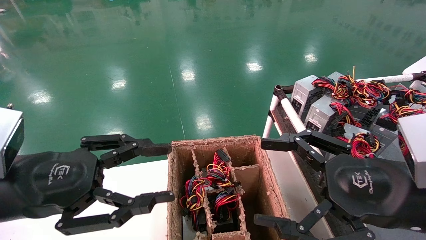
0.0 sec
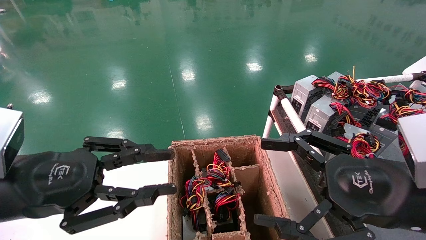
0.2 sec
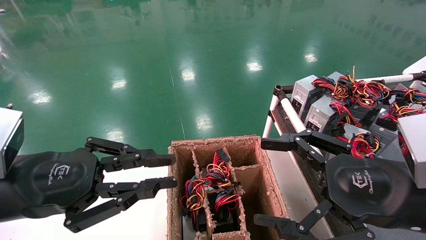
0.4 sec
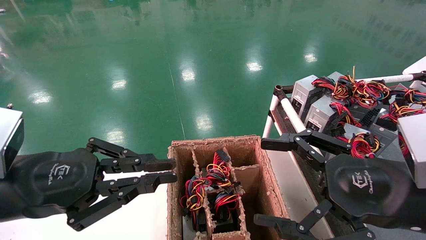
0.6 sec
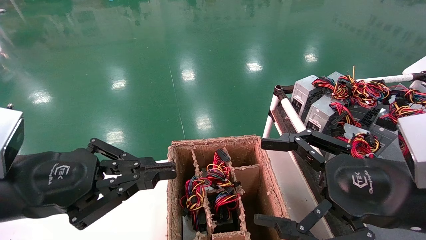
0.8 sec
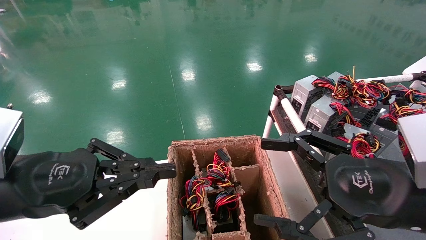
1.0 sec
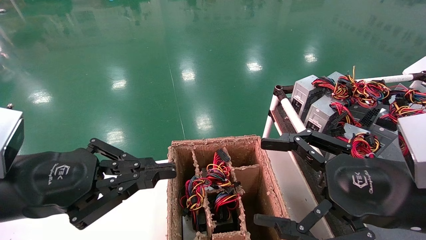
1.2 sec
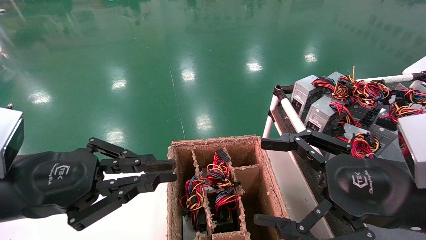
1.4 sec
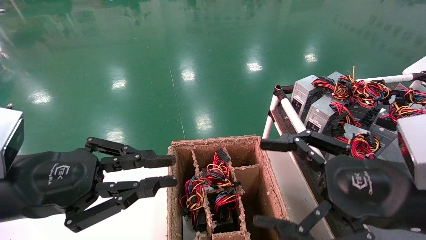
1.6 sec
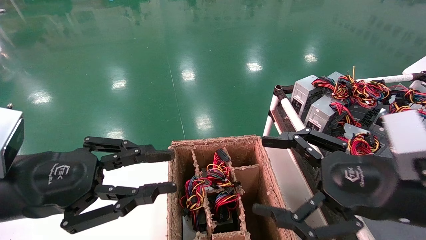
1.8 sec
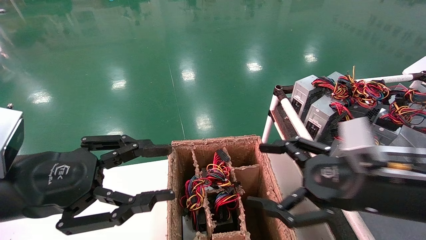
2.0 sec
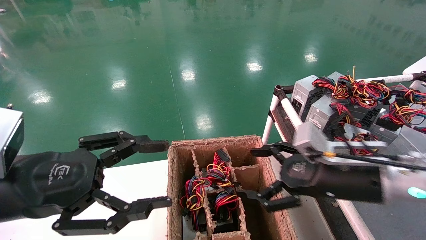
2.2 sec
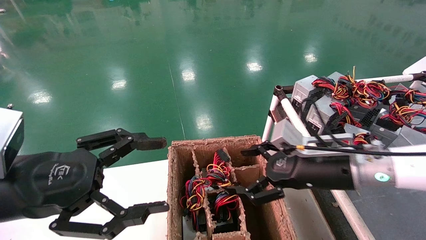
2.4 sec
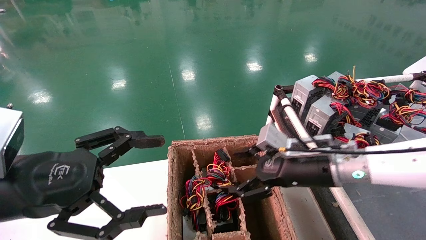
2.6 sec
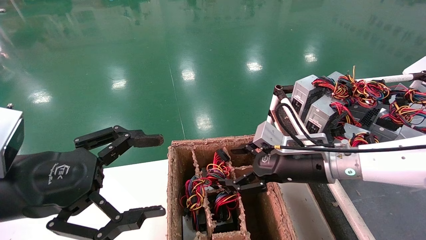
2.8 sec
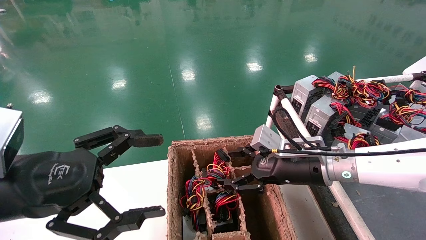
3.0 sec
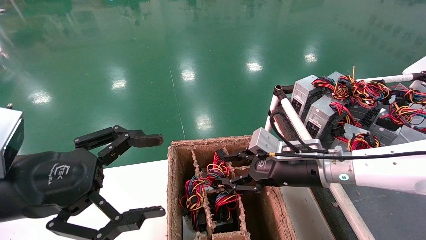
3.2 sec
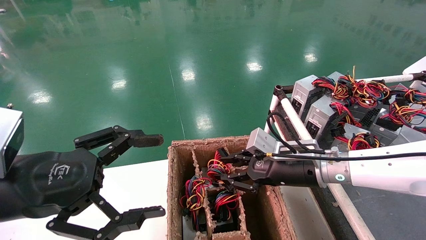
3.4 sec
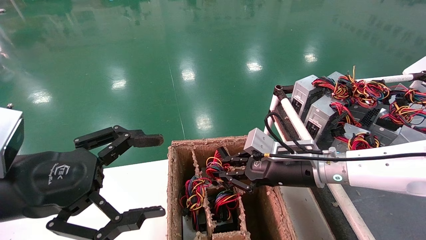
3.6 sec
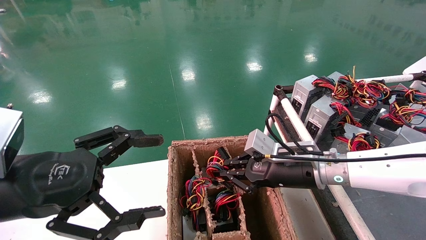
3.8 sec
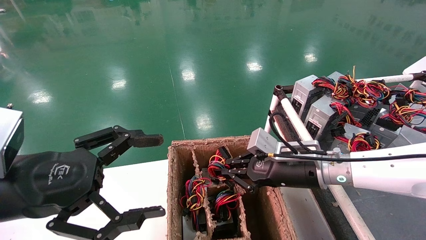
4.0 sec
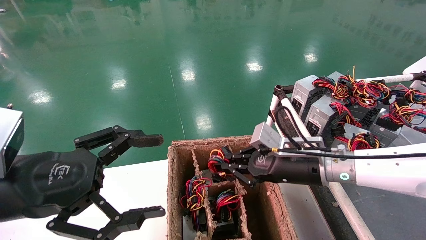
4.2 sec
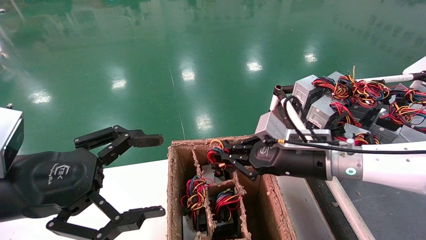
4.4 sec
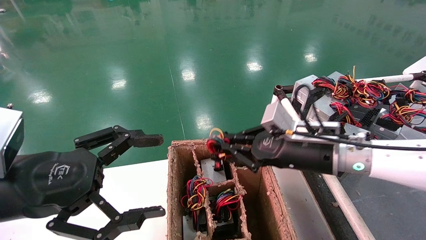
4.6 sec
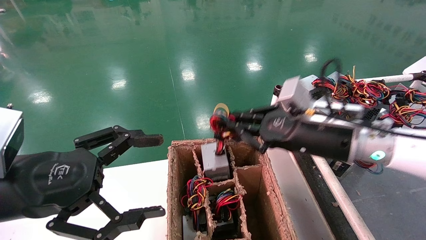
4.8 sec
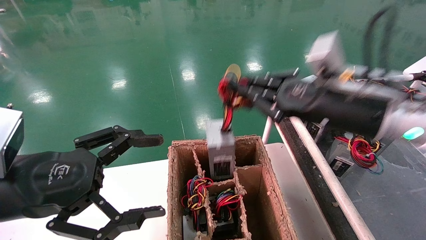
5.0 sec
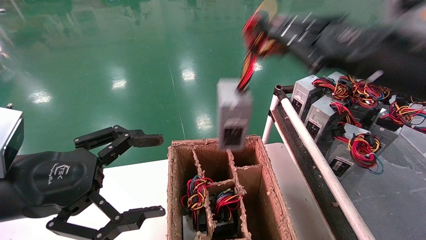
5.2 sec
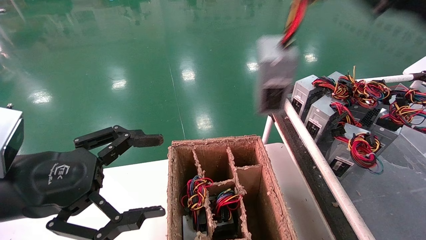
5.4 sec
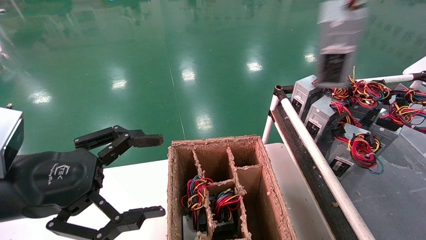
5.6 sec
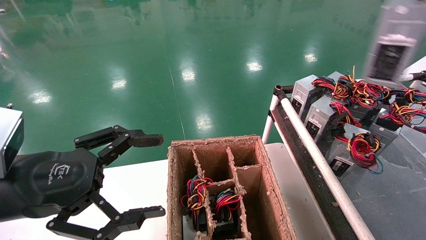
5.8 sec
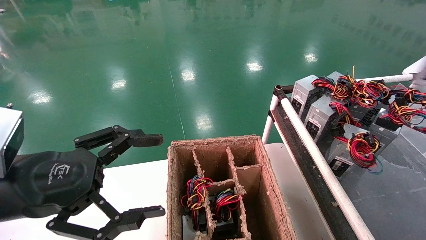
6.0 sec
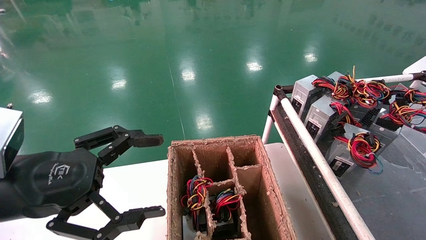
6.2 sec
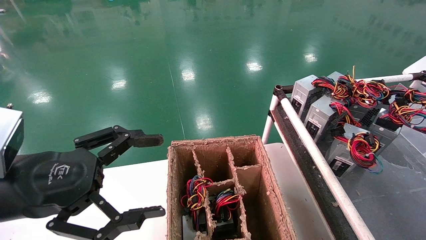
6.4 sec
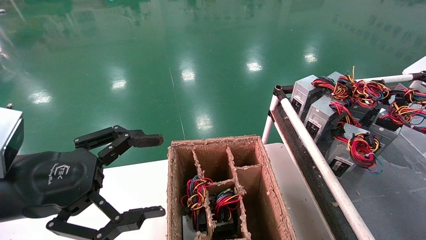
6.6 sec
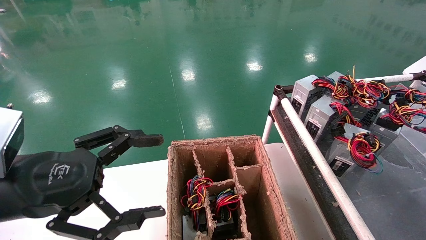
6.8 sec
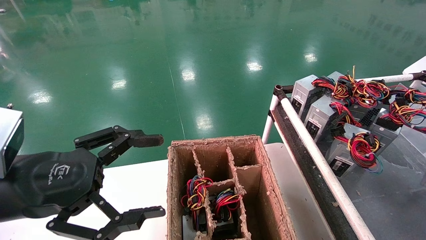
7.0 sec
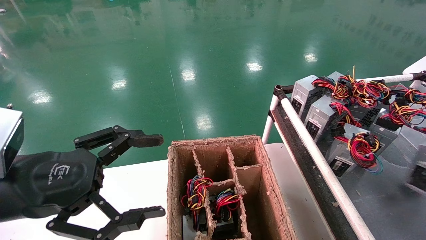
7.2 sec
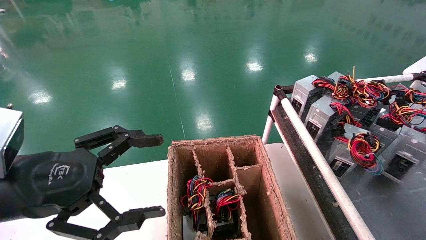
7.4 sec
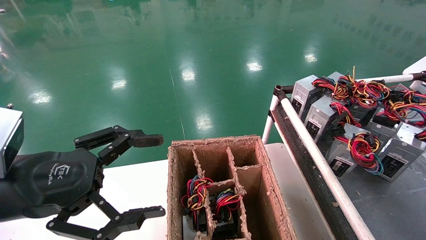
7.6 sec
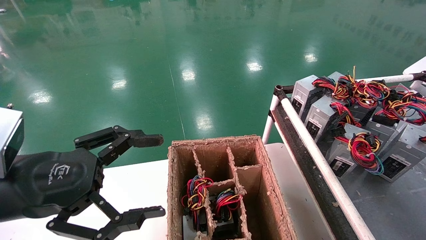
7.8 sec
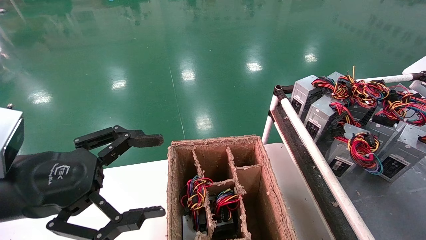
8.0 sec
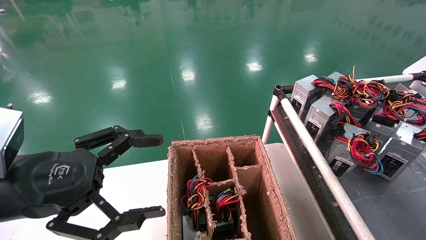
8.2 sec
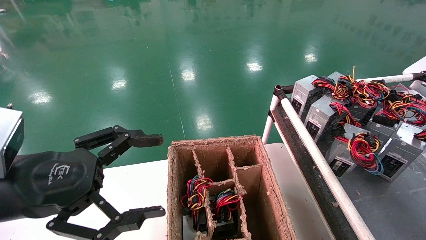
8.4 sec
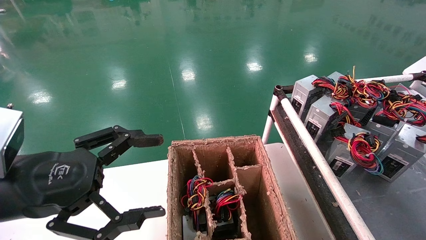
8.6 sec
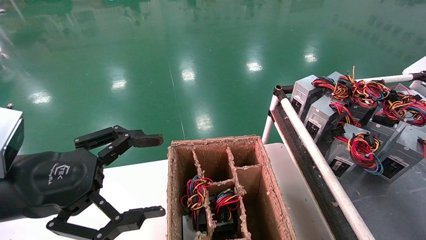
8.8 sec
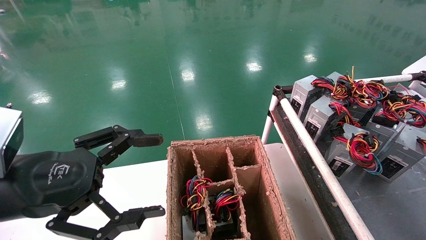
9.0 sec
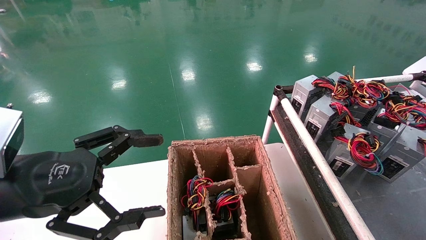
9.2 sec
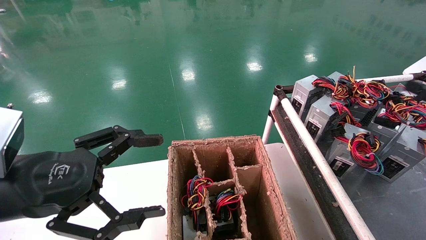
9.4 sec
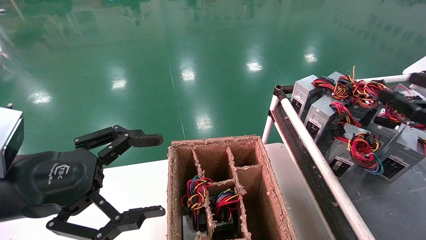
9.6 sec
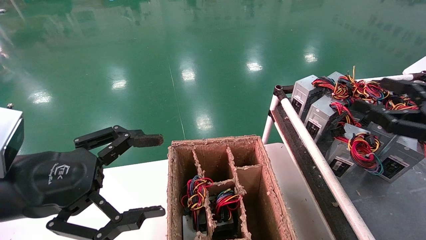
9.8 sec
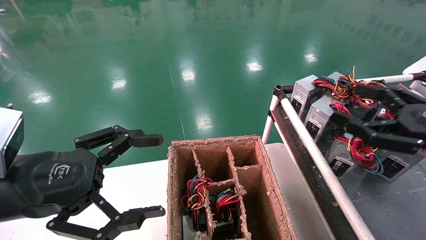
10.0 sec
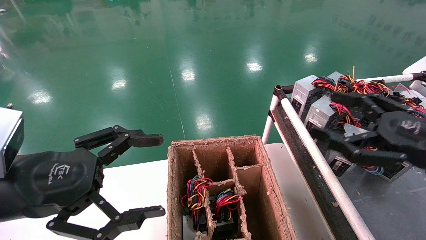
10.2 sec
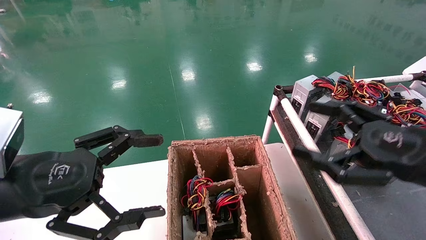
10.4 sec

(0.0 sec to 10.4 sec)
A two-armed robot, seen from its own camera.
Step, 1.0 sec - 4.0 sec: Grab and lift the power supply from the large box.
Step, 4.2 sec - 8.0 sec: Place the power supply on the operating table.
0.0 sec - 1.4 sec: The left gripper closes.
1.4 sec - 3.0 sec: The right gripper travels forward and to the left by approximately 20 cm, while the left gripper opens.
3.0 sec - 4.4 sec: The right gripper closes up.
4.4 sec - 6.0 sec: The right gripper heads to the right, upward and backward, covering about 40 cm.
6.0 sec - 7.4 sec: The right gripper travels downward by roughly 20 cm.
7.4 sec - 9.0 sec: The right gripper opens its fingers.
9.0 sec - 10.4 sec: The right gripper shifts some 20 cm to the left, and opens its fingers.

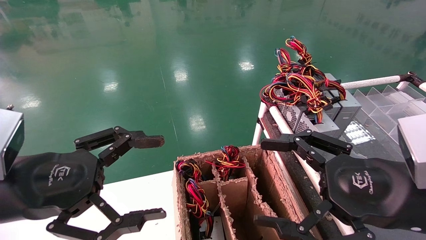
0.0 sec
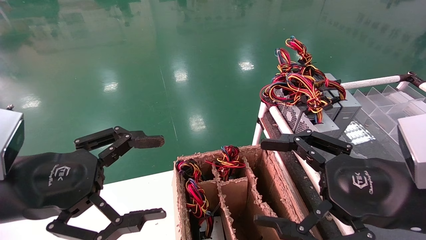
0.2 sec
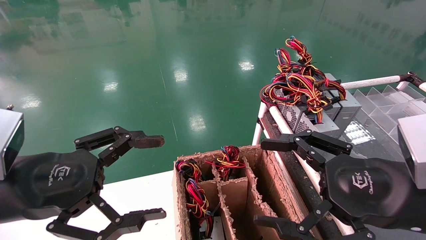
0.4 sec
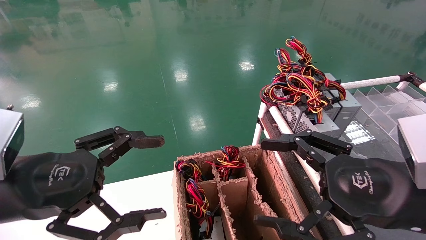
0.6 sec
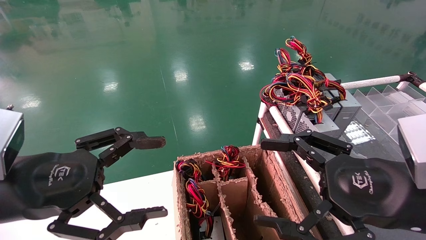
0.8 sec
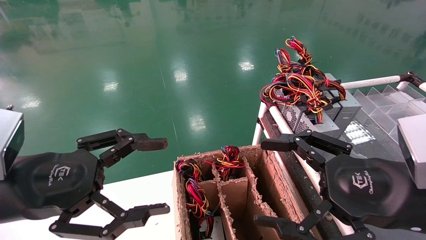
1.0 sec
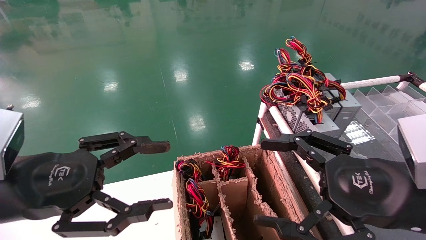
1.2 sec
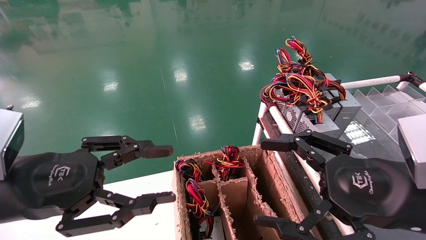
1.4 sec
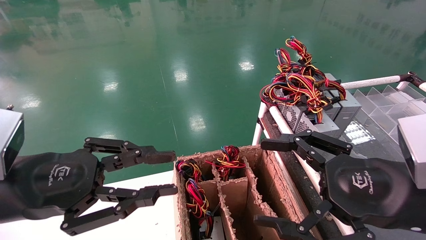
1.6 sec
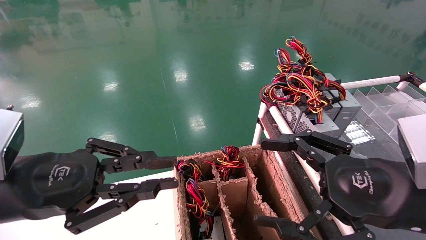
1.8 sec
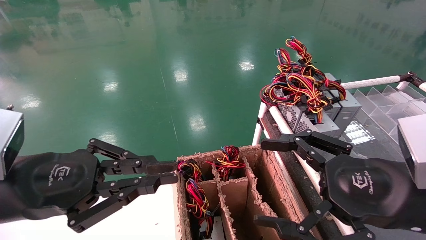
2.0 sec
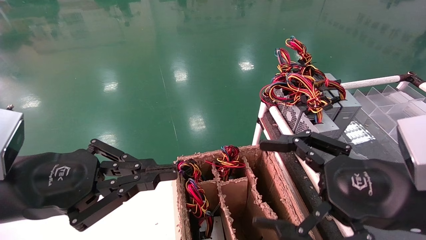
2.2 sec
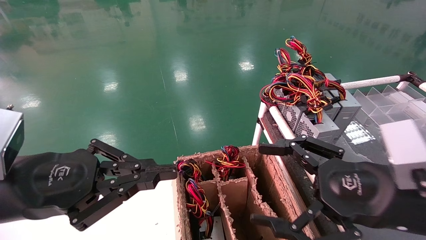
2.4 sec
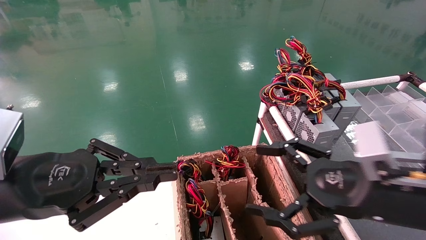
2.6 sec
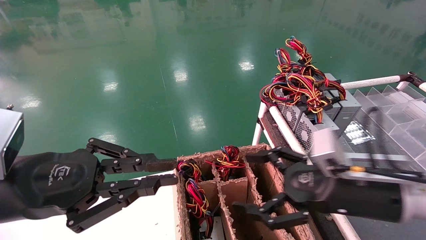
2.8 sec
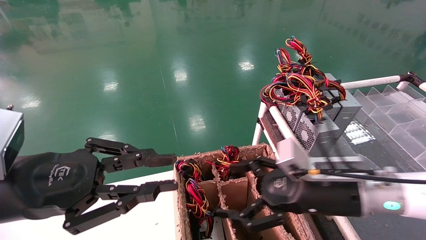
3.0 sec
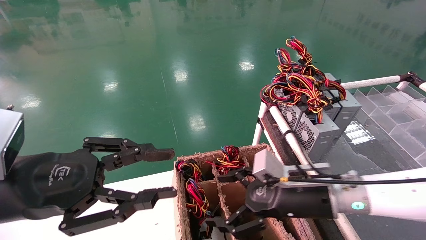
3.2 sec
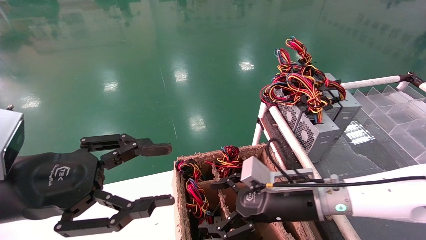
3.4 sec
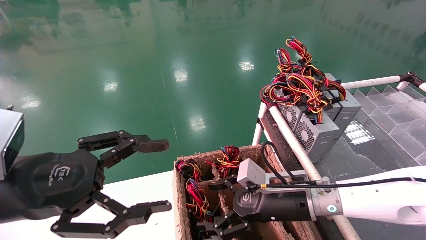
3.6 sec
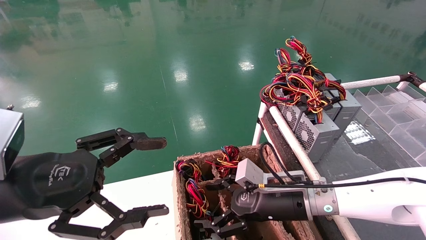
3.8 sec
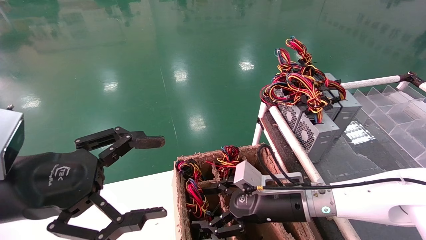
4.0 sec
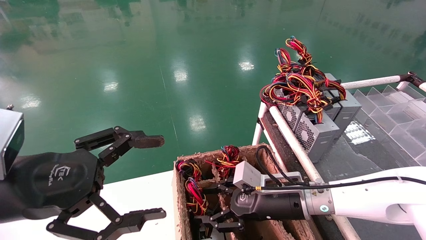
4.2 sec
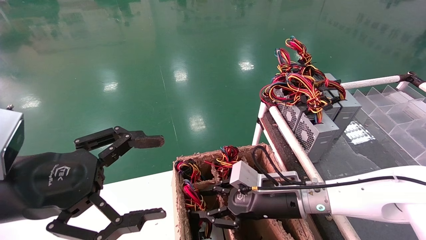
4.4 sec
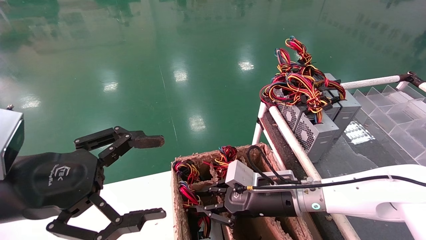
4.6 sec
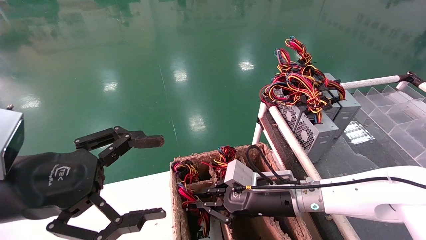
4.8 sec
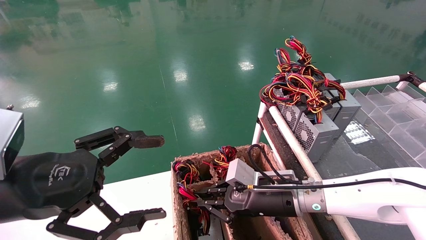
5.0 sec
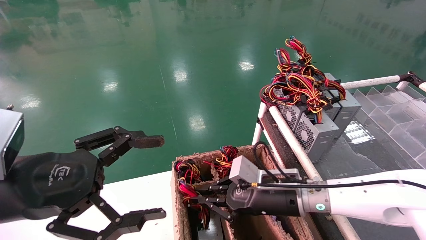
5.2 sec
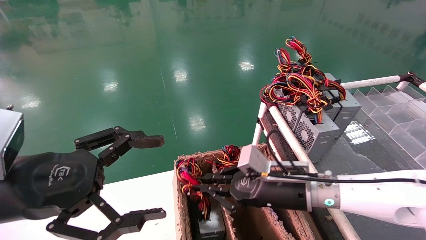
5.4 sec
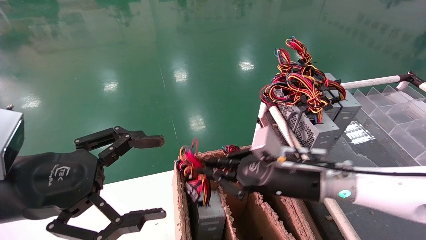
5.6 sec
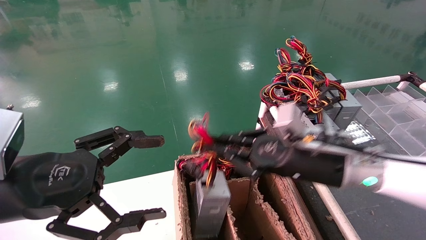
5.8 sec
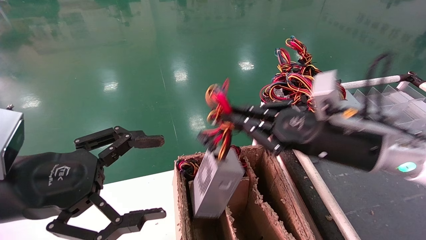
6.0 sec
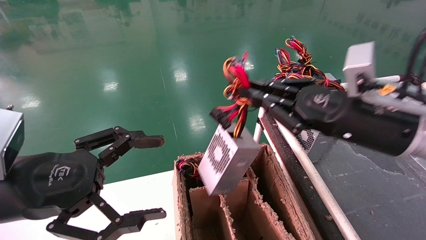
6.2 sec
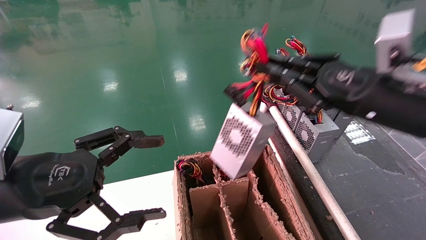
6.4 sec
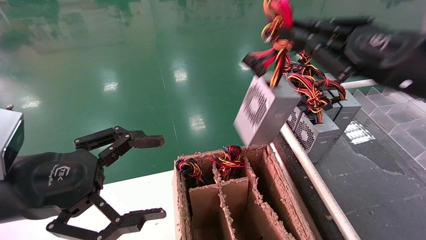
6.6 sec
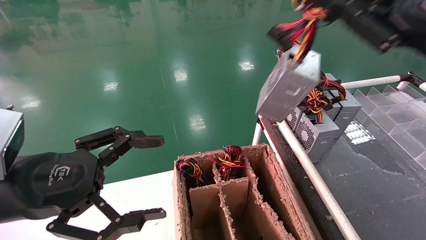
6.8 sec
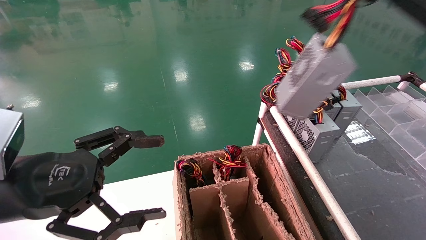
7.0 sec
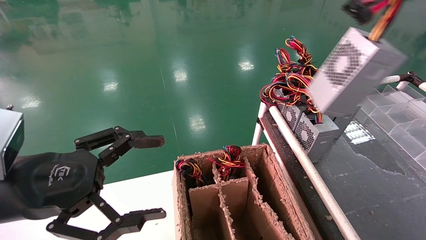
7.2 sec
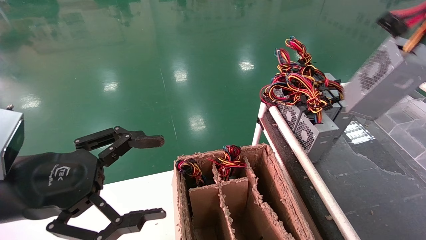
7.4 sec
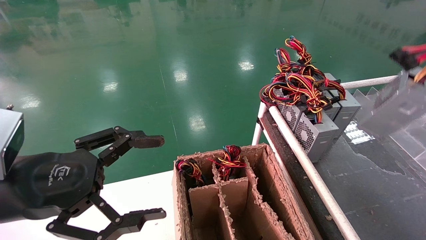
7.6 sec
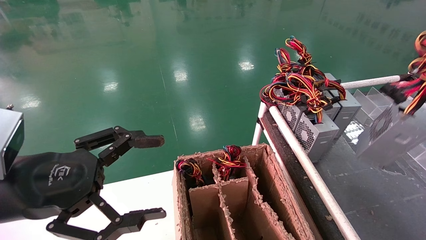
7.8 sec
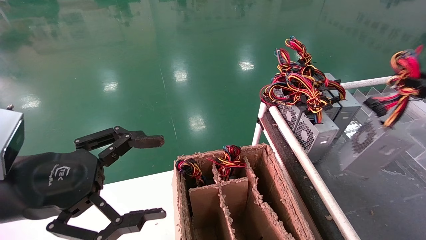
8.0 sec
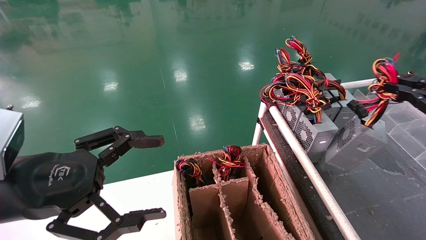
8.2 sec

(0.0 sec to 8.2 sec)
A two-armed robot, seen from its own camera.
Step, 2.2 sec - 5.4 sec: Grab and lift the power supply from the large box.
0.0 sec - 1.6 sec: The left gripper closes up.
1.6 sec - 3.2 sec: The right gripper travels forward, downward and to the left by about 15 cm.
3.2 sec - 5.0 sec: The left gripper opens, while the right gripper shifts by some 5 cm, and closes its fingers.
5.0 sec - 6.6 sec: The right gripper heads upward and to the right, covering about 30 cm.
6.6 sec - 8.2 sec: The right gripper goes roughly 15 cm to the right.
